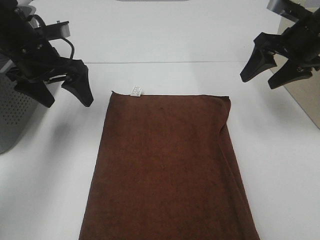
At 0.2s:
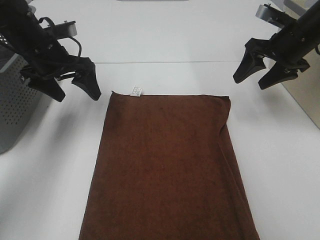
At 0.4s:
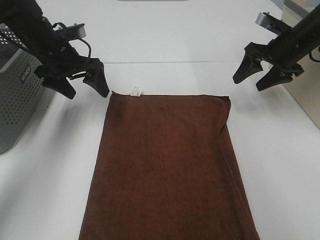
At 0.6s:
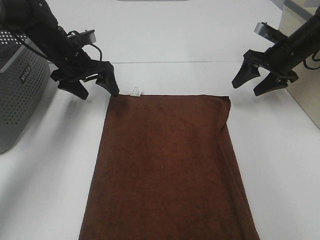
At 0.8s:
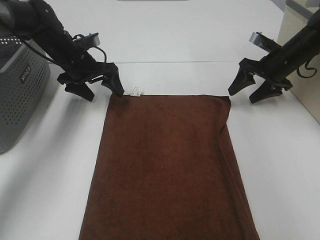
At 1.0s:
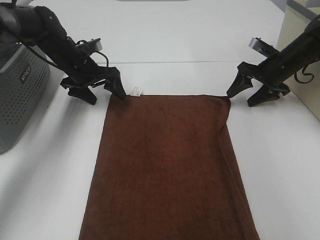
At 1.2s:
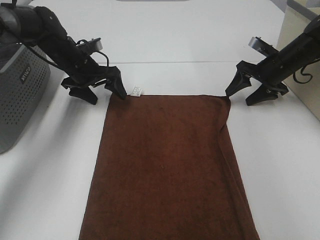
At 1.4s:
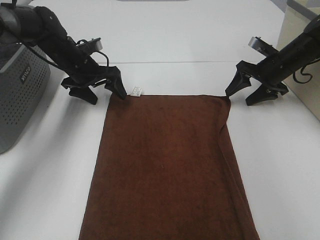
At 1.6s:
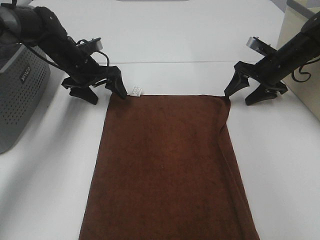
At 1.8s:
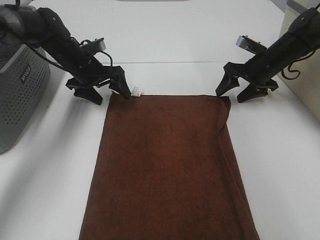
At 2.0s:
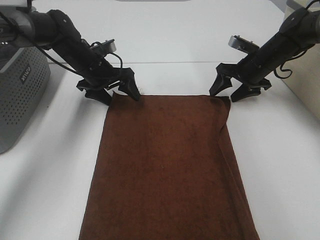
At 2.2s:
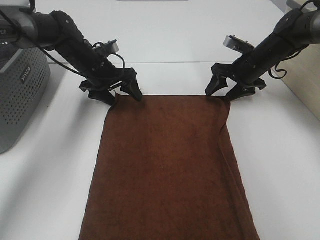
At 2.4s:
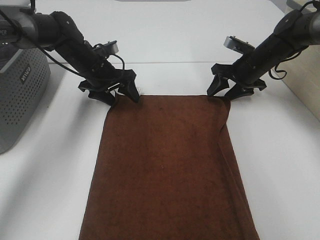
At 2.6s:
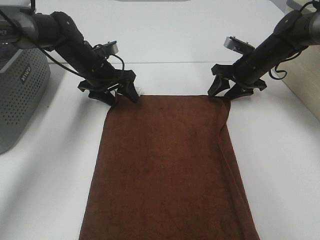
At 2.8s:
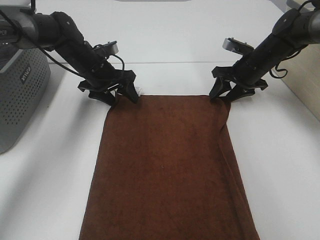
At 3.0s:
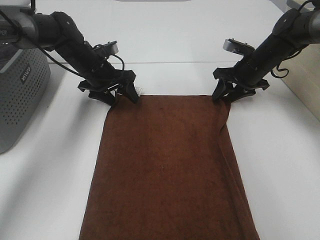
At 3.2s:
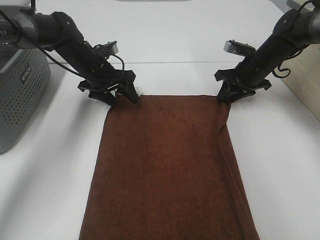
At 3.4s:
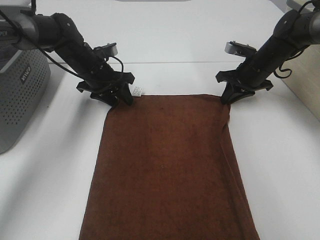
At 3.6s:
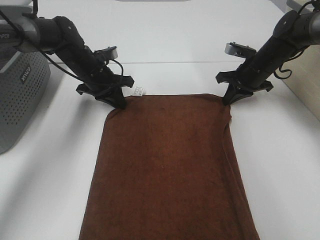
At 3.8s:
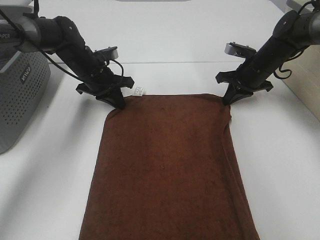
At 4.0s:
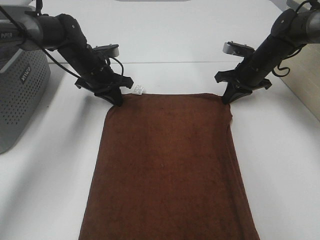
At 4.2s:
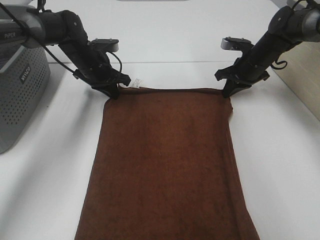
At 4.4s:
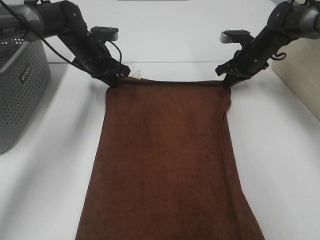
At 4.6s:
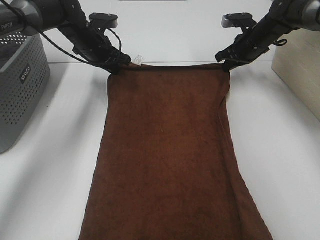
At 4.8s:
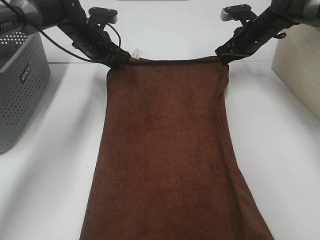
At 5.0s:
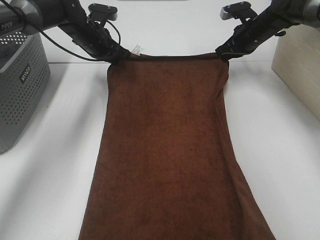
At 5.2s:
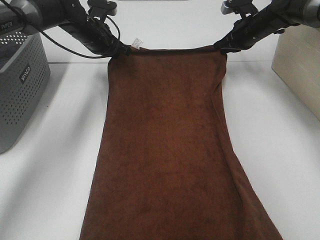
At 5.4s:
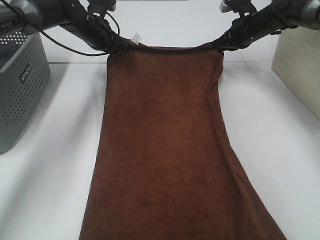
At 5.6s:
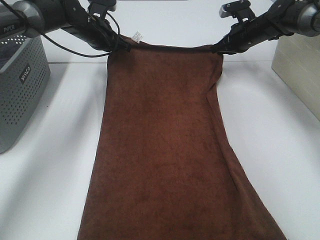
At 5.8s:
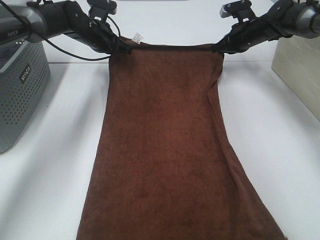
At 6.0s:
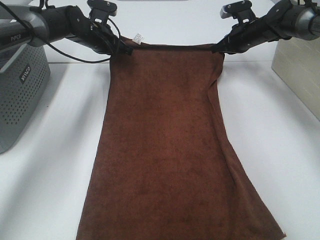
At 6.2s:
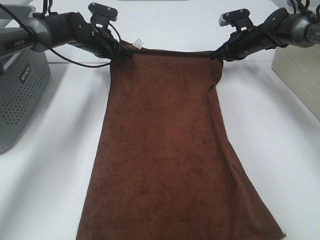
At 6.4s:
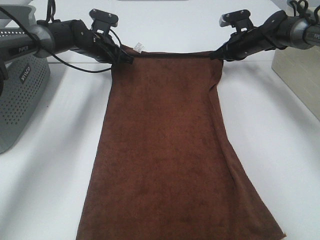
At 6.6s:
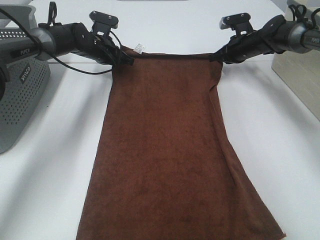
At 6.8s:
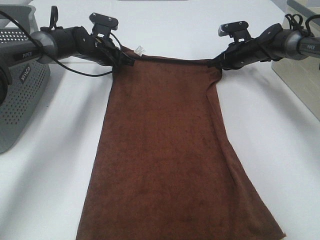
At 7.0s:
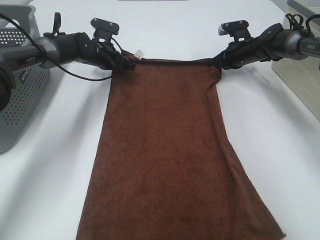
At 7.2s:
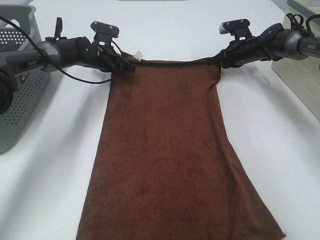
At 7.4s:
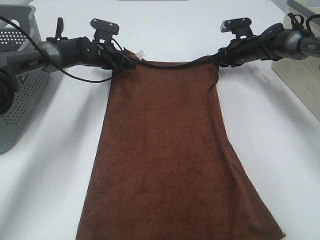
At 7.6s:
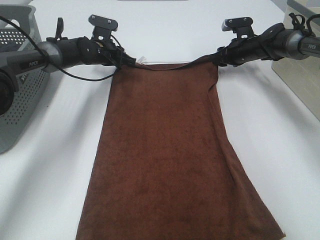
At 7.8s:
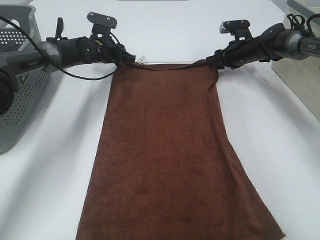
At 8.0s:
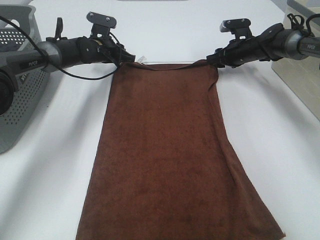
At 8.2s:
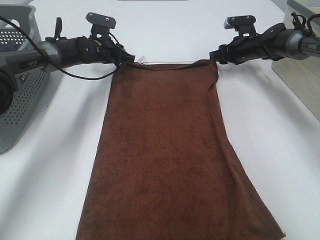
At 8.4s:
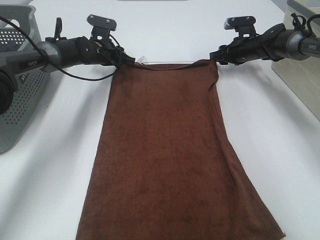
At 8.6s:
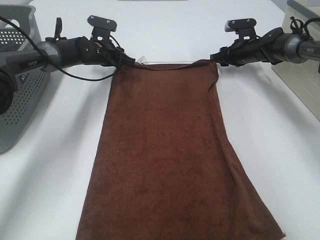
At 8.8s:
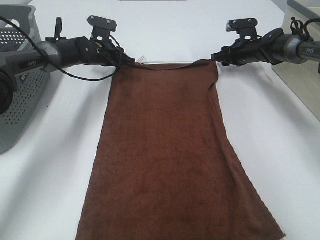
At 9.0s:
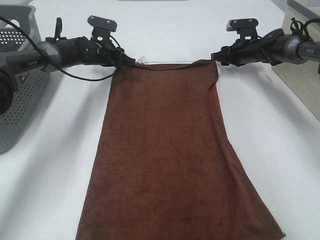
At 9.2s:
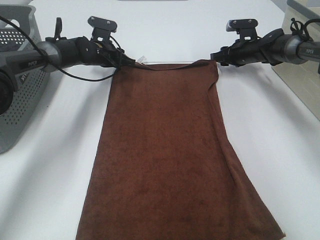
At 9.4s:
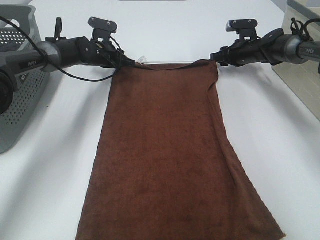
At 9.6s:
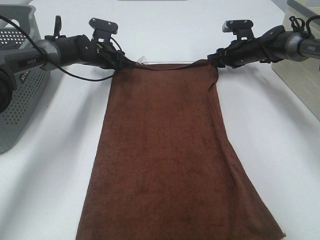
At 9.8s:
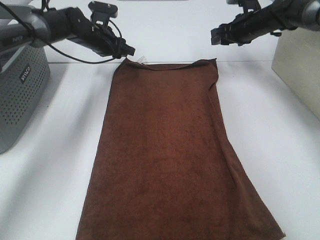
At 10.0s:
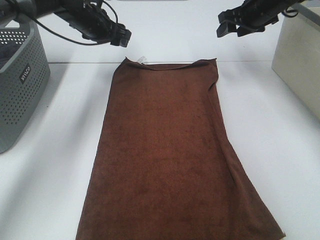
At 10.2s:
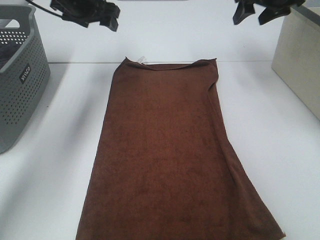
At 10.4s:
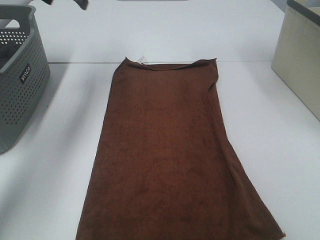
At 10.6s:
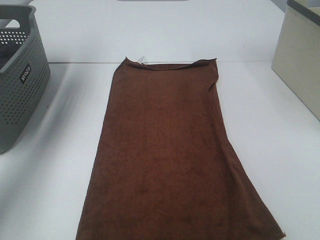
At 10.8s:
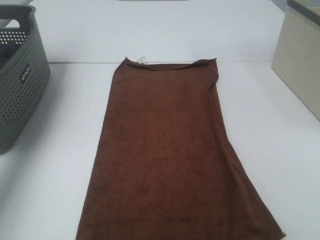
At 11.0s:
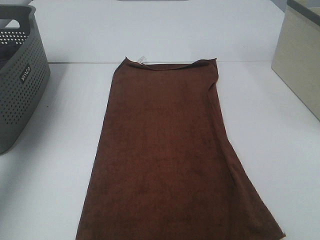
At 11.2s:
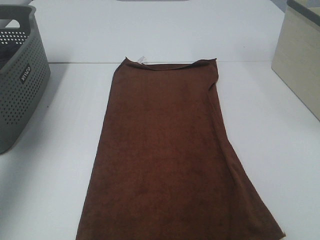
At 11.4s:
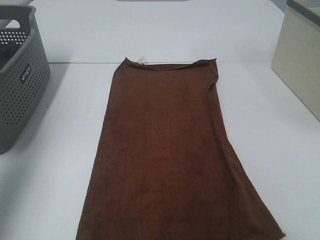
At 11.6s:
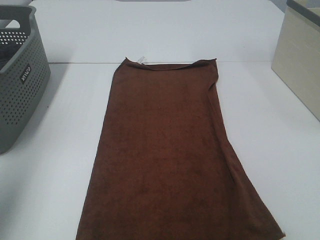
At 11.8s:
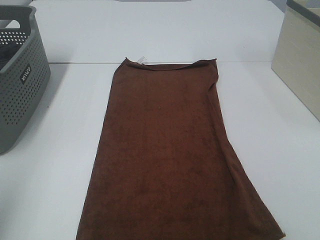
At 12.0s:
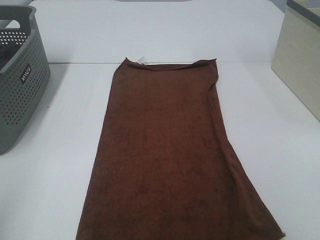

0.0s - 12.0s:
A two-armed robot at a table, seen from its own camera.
Task of the whole recording: Remove the towel and place it.
Step, 0.0s - 3.0s: Left hand:adjust the brown towel.
Step, 0.0s - 3.0s: Right hand:adjust the brown towel.
0.0s - 1.6s: The right gripper travels downward and forward by approximately 15 cm; the left gripper travels forward and downward by some 15 cm.
1.6s - 3.0s: The grippers move only a little.
3.0s - 4.4s: The left gripper changes place by some 5 cm, and closes. The right gripper ends up roughly 5 cm from where it was, and closes.
6.0s - 7.6s: The right gripper opens its fingers. Meanwhile the left gripper heads downward, covering about 5 cm.
7.6s - 9.0s: The grippers stay close to where they were, moving slightly.
9.0s - 10.4s: The left gripper goes some 25 cm upward, and opens up; the right gripper goes some 30 cm upward and backward.
10.4s - 12.0s: The grippers both shift backward by about 40 cm.

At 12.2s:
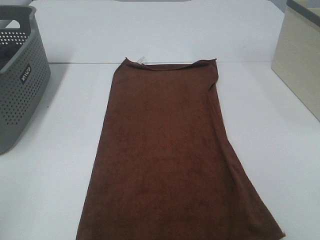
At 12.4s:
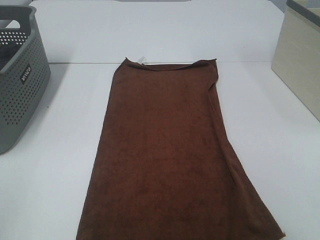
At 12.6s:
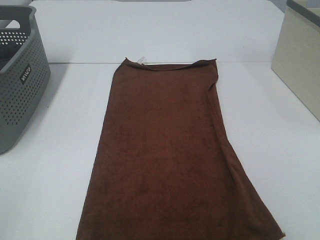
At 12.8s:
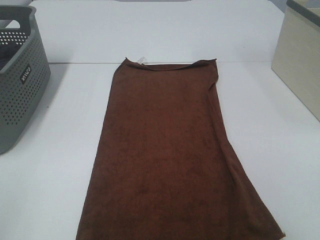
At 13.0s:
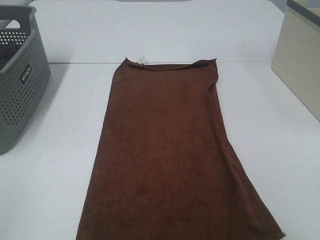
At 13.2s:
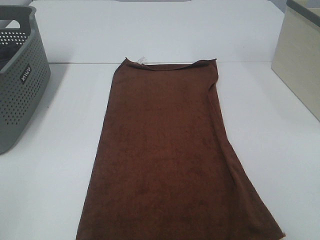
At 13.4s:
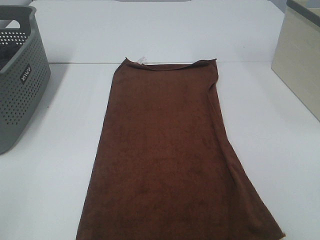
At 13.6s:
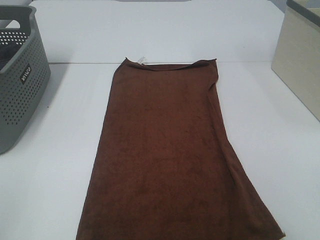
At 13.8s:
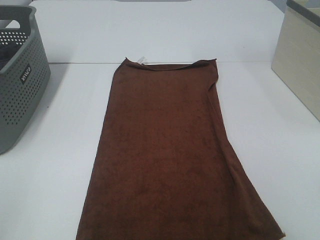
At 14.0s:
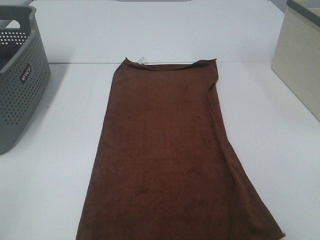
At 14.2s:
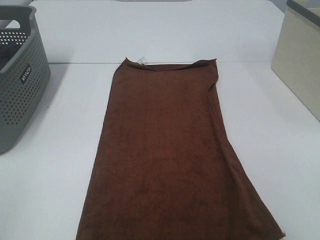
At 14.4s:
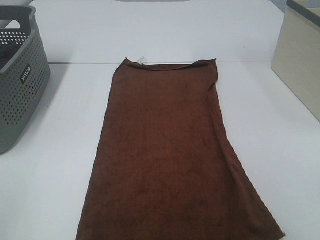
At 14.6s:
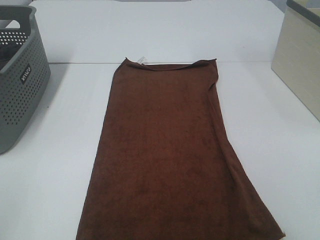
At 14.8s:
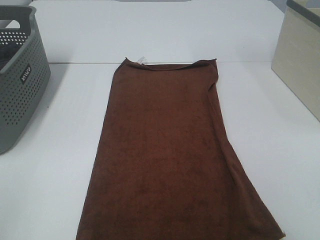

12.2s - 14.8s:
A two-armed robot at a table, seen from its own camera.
Task of the whole recording: Remove the towel and place it.
13.4s - 14.8s: Both grippers stay put.

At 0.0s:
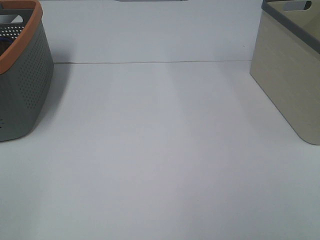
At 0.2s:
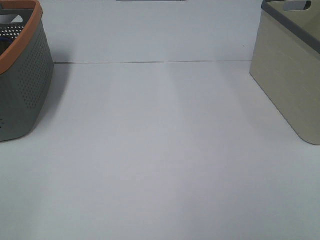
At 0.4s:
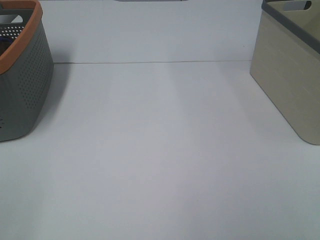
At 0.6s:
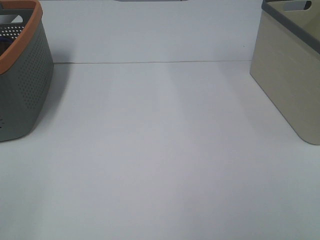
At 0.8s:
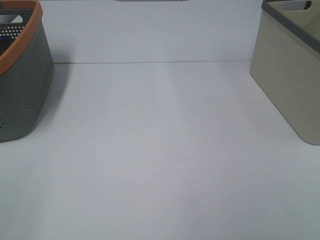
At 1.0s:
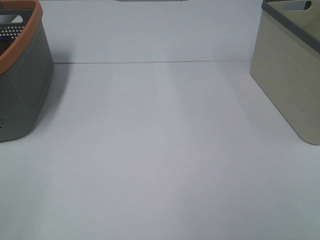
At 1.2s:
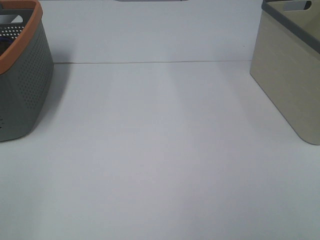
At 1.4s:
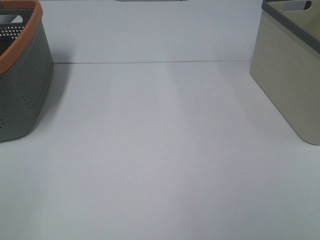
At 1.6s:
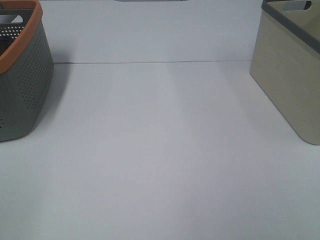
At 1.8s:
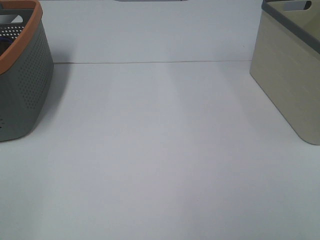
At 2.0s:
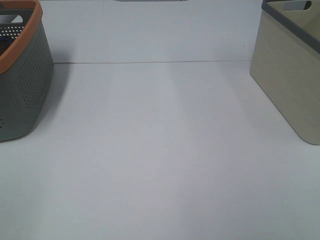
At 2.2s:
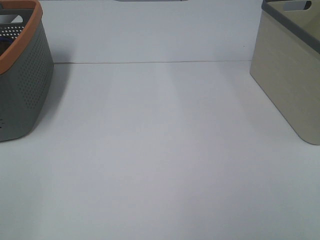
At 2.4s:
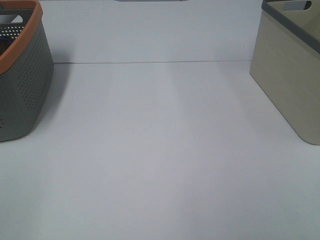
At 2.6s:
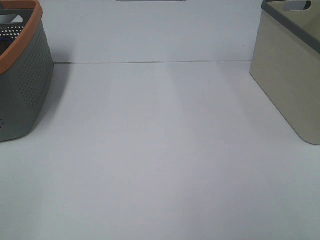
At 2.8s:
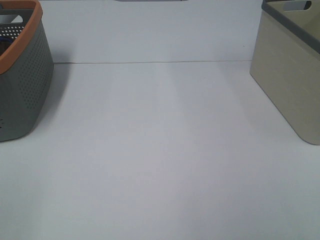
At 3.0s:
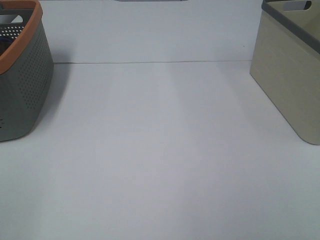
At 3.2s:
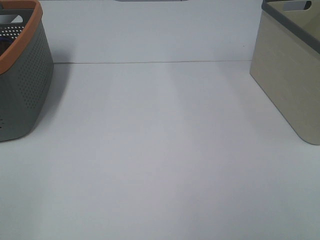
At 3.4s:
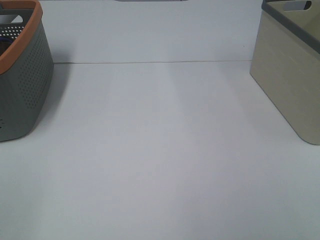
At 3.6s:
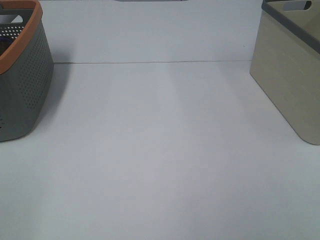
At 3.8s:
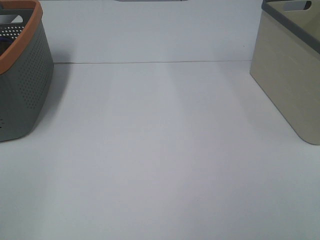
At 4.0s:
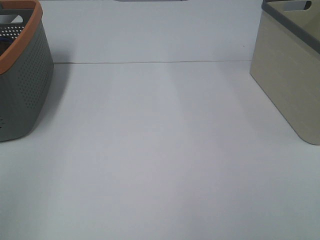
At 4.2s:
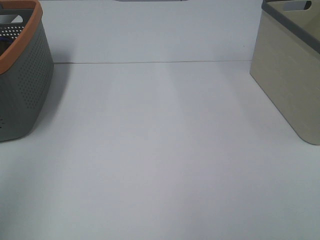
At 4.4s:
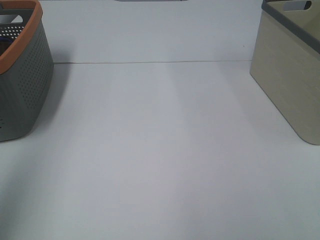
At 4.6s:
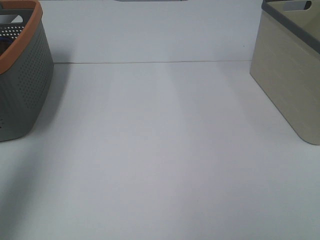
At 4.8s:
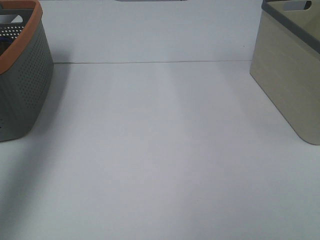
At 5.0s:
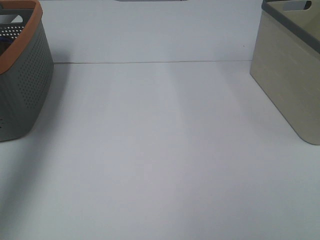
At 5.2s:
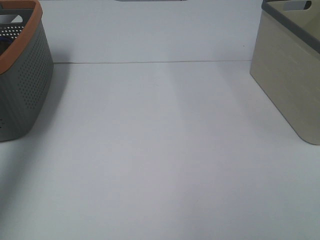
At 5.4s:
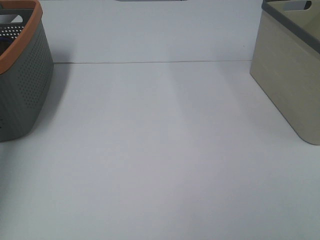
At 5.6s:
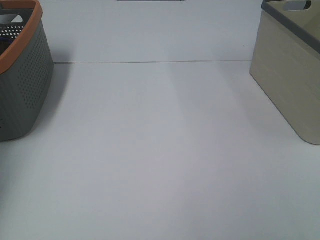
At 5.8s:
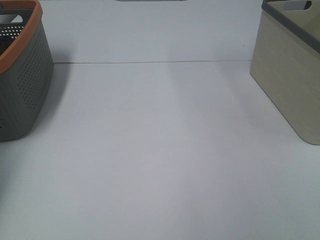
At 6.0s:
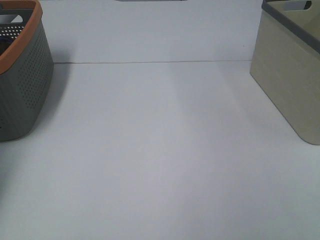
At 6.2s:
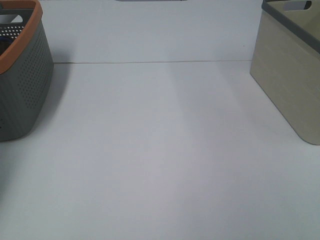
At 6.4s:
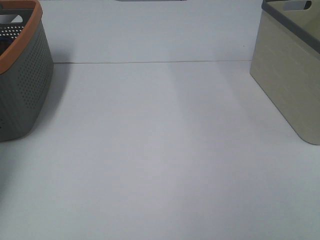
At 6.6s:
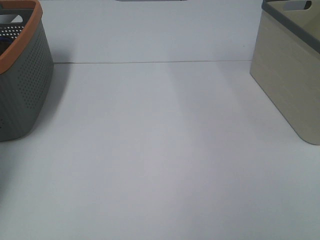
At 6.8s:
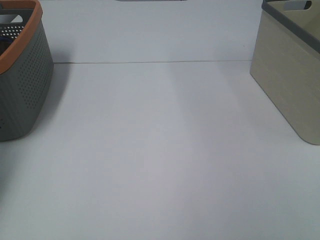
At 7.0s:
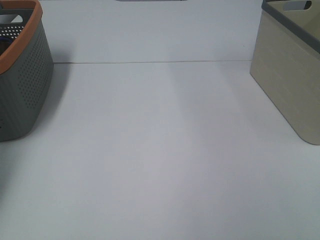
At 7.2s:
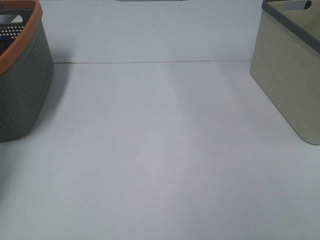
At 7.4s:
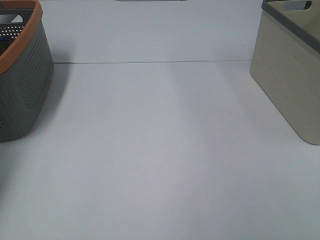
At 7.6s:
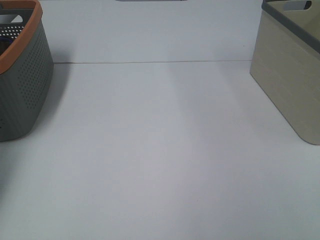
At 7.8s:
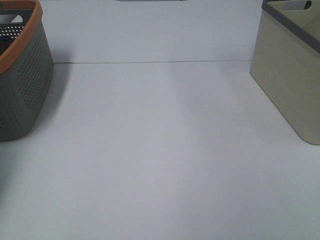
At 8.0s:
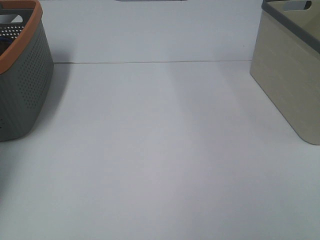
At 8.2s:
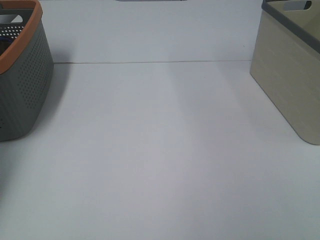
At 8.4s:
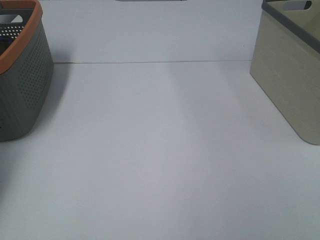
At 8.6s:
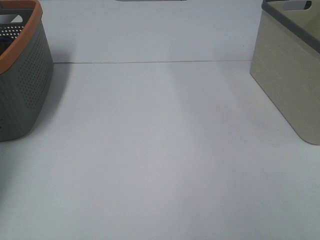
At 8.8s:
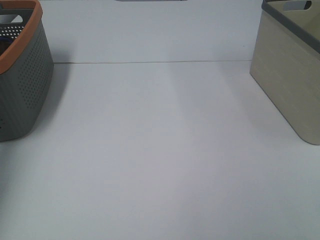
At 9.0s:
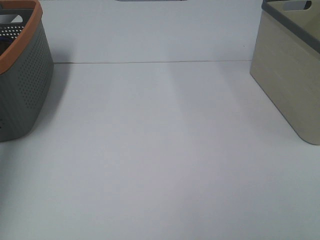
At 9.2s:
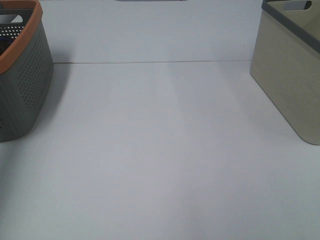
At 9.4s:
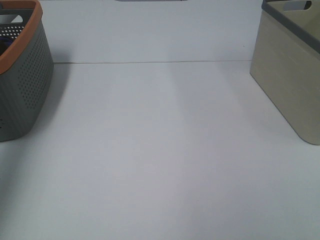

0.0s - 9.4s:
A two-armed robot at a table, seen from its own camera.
Task of the whole recording: Remove the towel and place it.
0.0s - 3.2s: Neither gripper changes place.
3.2s - 4.8s: The left gripper moves forward and upward, some 35 cm.
4.8s - 6.2s: The left gripper moves downward and forward, about 30 cm.
7.8s - 9.4s: The left gripper heads upward and backward, covering some 35 cm, and closes.
